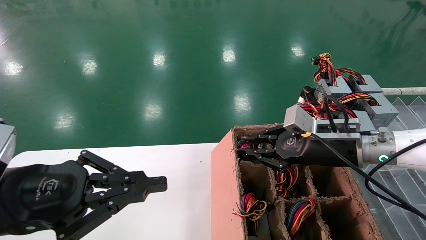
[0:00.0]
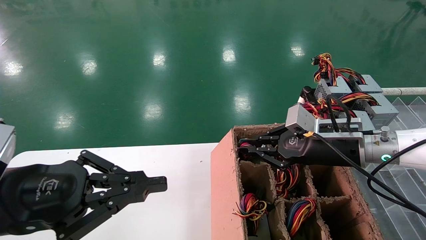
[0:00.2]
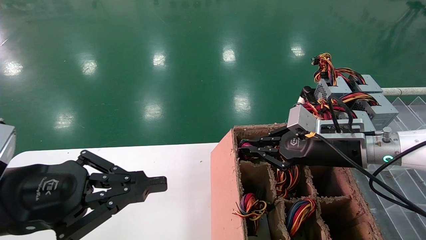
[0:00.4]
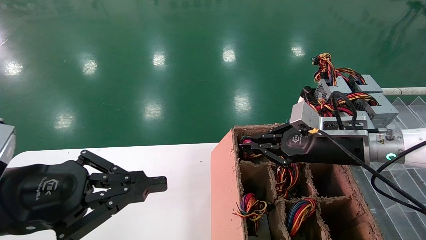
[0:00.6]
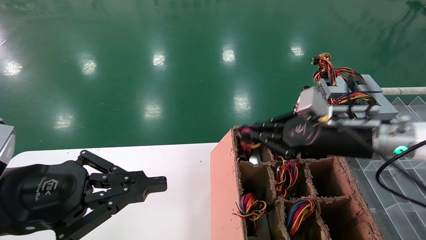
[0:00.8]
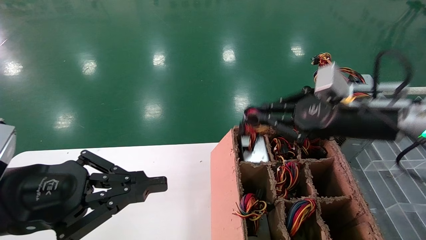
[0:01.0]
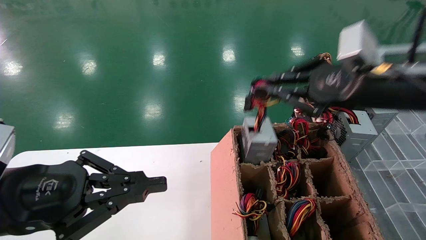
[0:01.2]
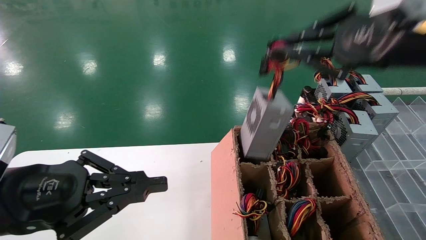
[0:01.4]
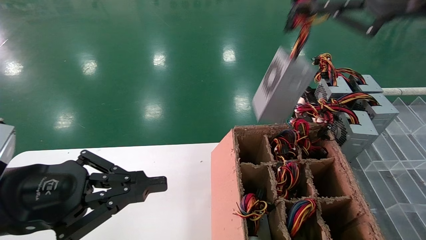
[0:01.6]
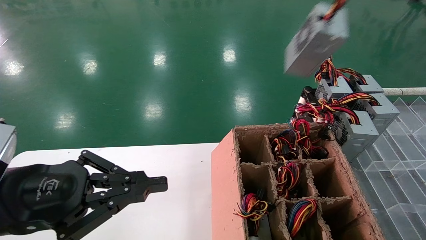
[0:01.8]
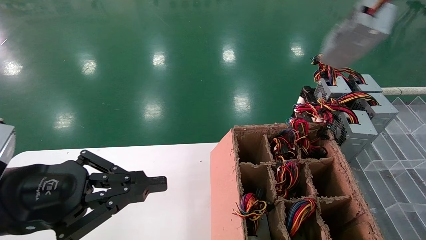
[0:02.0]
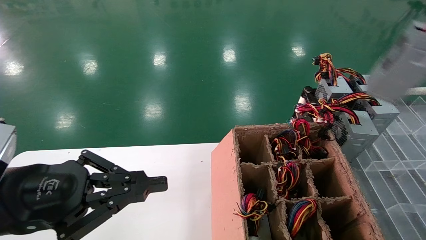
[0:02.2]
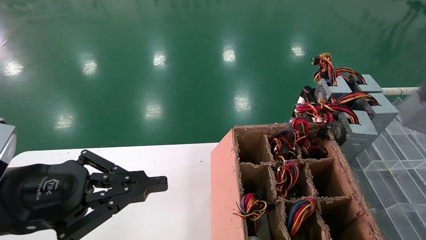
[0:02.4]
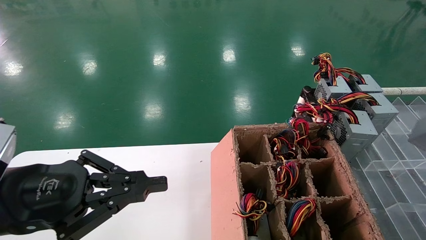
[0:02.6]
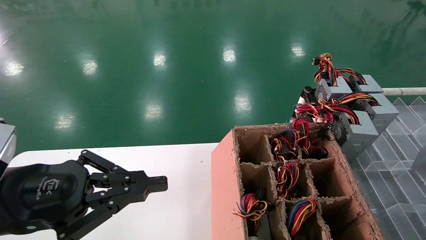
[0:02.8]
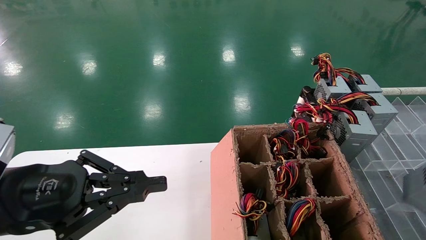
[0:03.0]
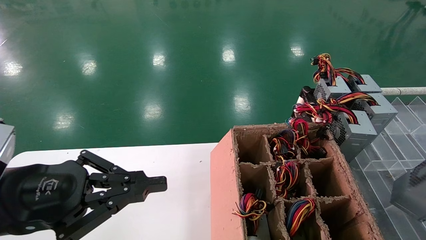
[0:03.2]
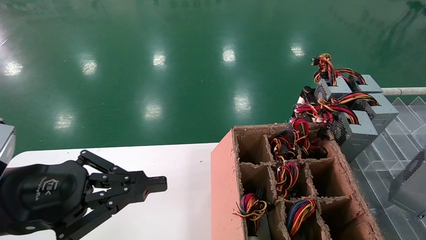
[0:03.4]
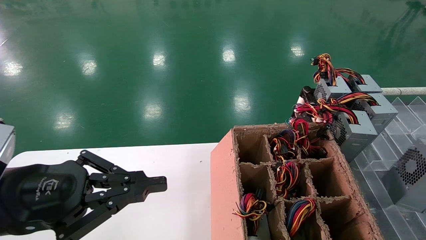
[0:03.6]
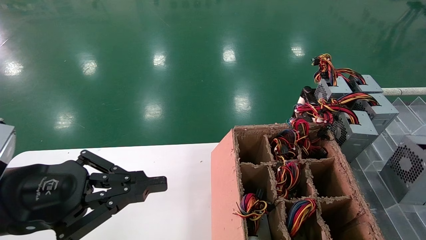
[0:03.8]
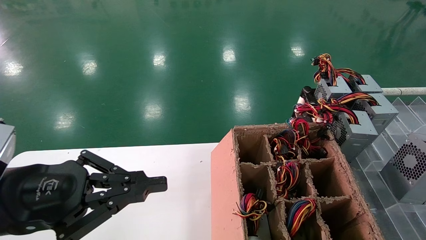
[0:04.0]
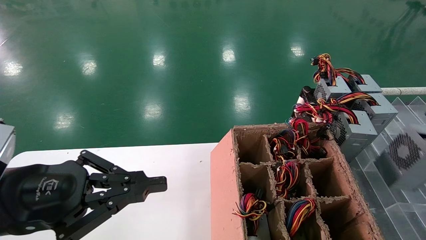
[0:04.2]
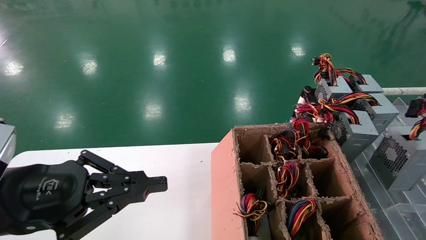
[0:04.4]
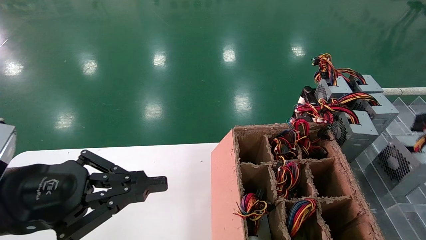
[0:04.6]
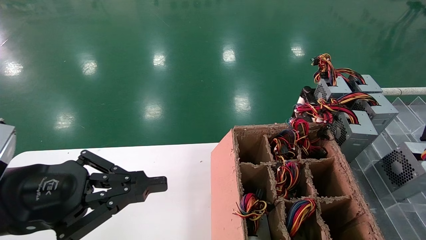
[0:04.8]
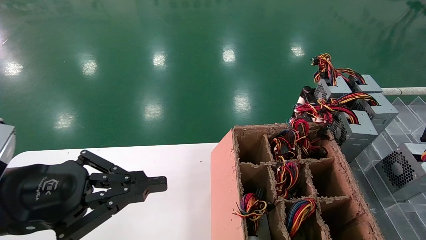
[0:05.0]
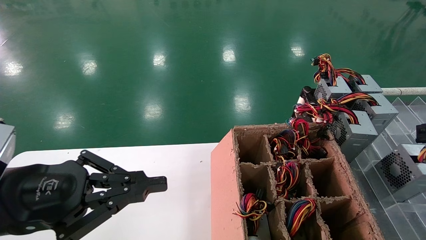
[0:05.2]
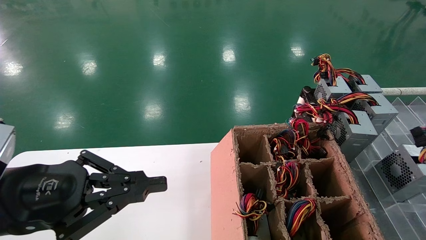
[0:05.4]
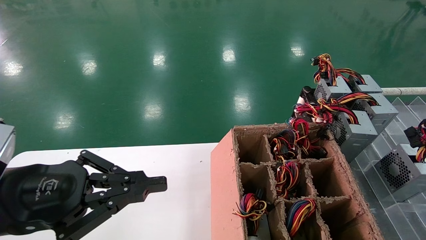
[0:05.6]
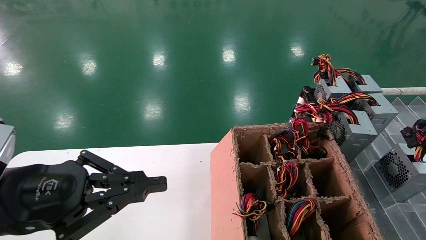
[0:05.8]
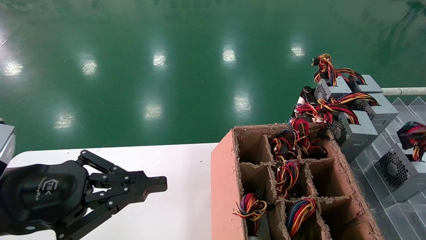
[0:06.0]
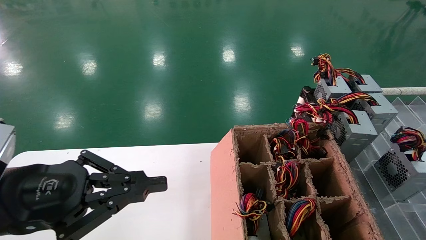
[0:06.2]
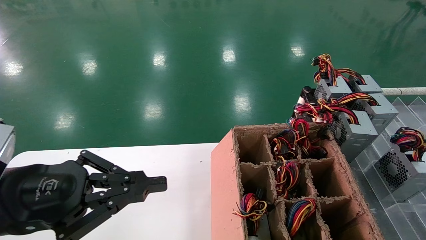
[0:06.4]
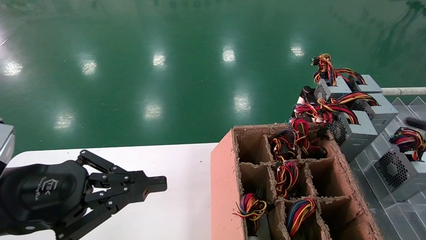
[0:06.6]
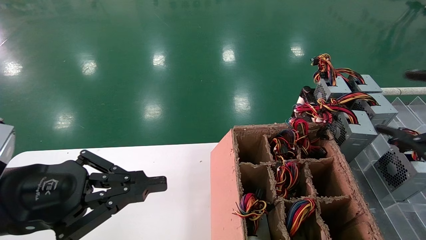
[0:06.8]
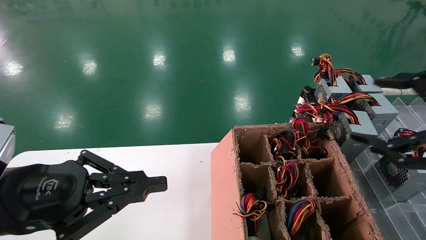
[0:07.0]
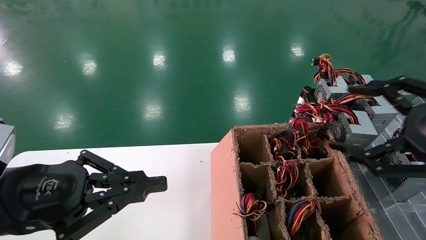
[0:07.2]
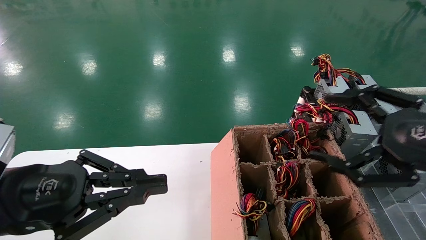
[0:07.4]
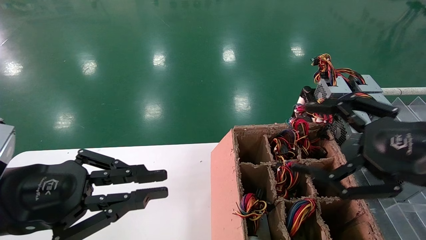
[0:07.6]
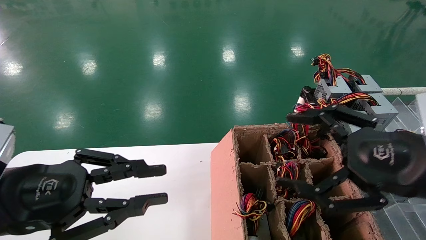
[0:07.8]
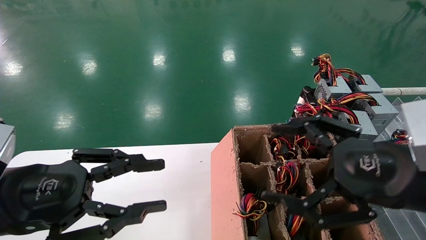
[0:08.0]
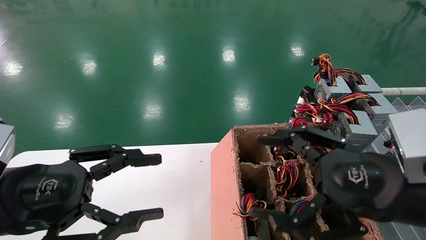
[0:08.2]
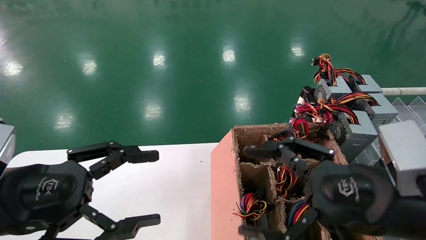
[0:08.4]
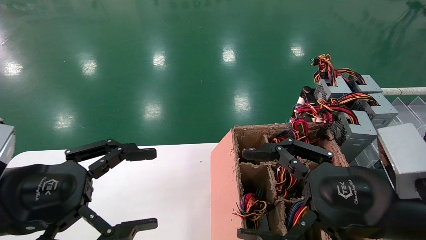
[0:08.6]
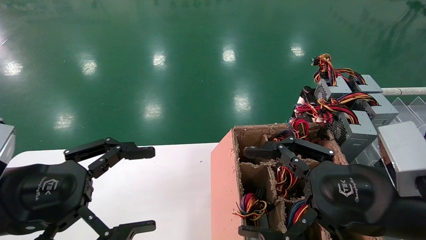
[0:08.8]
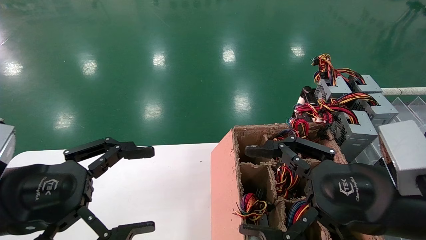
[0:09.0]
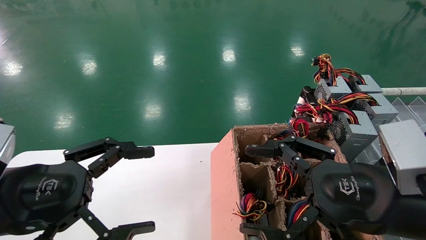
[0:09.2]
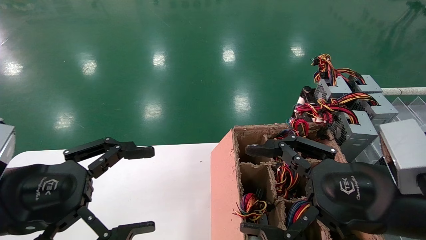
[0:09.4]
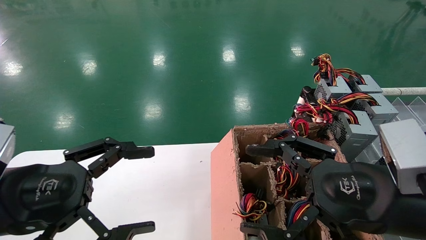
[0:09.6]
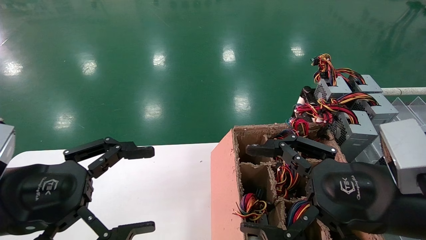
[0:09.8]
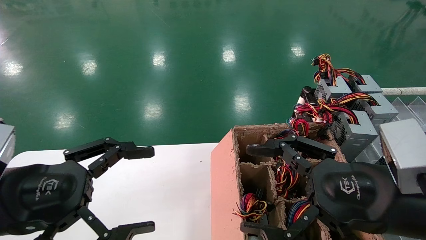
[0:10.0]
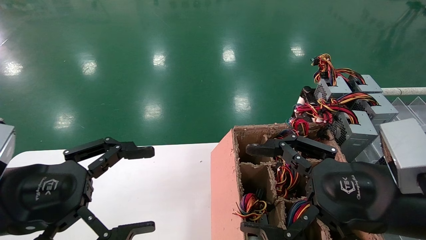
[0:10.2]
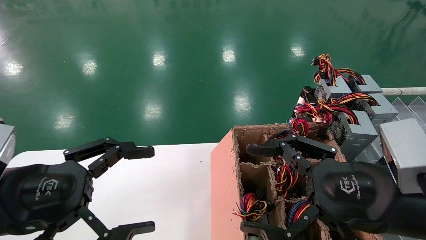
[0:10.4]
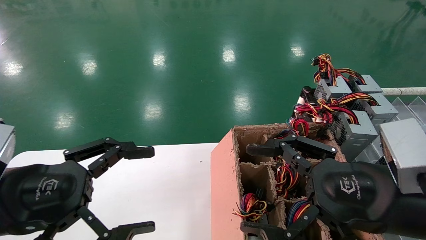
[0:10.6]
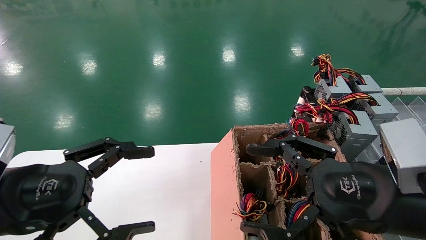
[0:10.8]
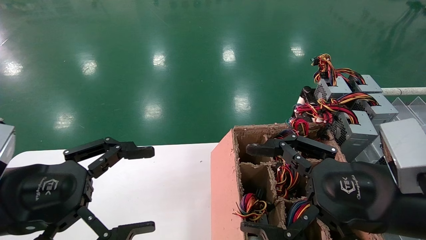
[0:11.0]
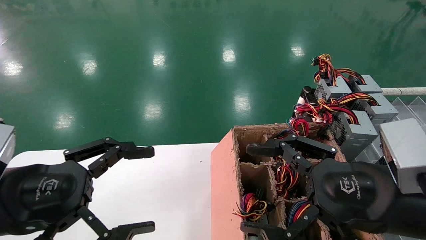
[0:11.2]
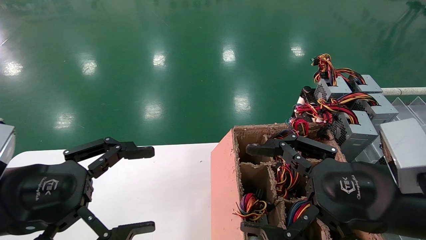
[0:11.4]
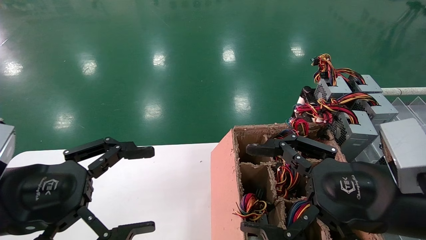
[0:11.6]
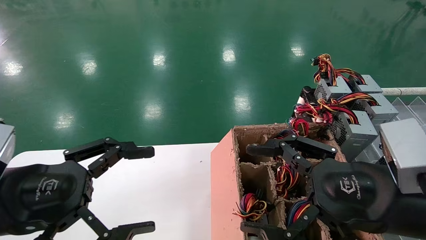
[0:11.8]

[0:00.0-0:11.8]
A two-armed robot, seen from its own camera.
Step, 0:00.6 to 0:05.2: Place the main unit power supply in the designated area.
0:00.0 to 0:01.4: The right gripper shifts roughly 25 cm upward and backward.
0:01.4 to 0:03.0: The right gripper moves to the right and backward, approximately 25 cm.
0:03.0 to 0:04.4: The right gripper is displaced forward by about 5 cm.
0:04.4 to 0:06.0: The right gripper opens its fingers.
0:06.0 to 0:07.4: The right gripper heads to the left, covering about 15 cm, and opens its fingers.
0:07.4 to 0:08.8: The left gripper opens up. Meanwhile the right gripper moves to the left and downward, roughly 10 cm.
0:08.8 to 0:11.8: The two grippers keep their place.
